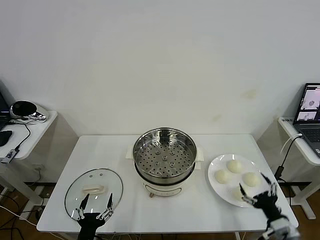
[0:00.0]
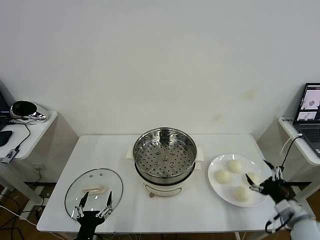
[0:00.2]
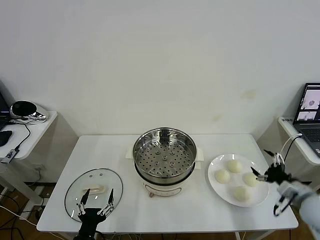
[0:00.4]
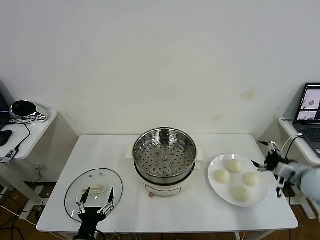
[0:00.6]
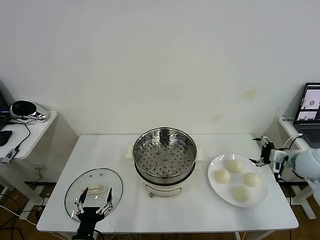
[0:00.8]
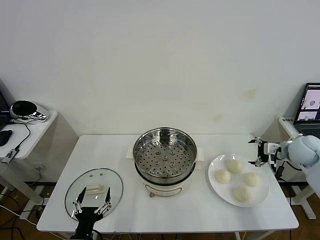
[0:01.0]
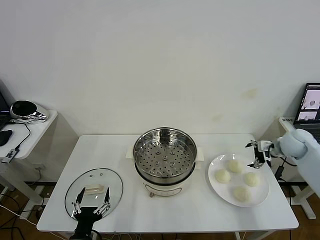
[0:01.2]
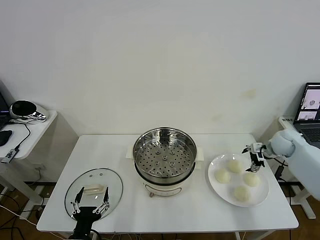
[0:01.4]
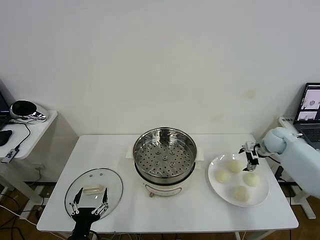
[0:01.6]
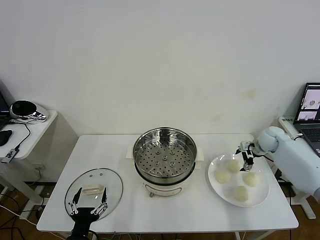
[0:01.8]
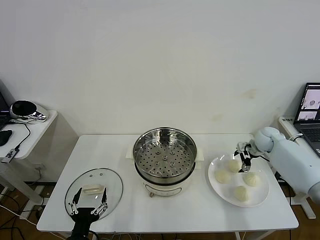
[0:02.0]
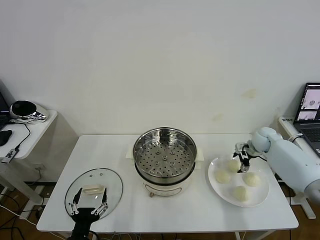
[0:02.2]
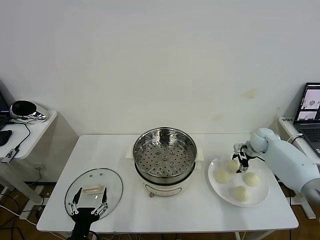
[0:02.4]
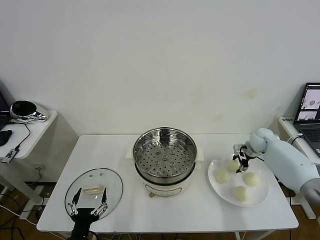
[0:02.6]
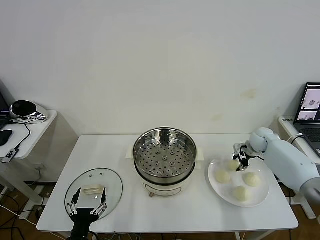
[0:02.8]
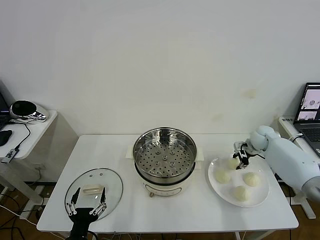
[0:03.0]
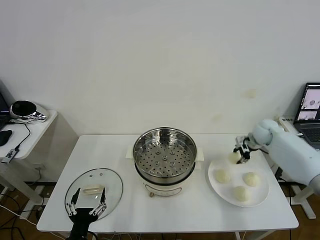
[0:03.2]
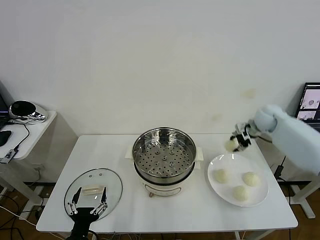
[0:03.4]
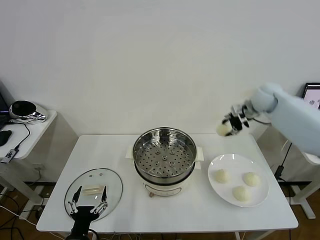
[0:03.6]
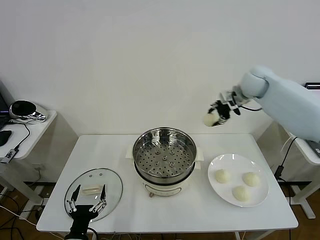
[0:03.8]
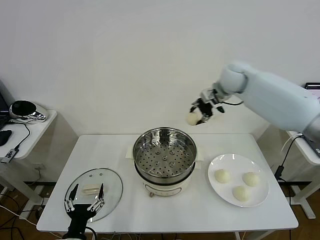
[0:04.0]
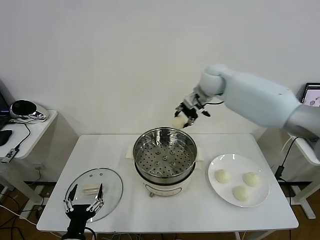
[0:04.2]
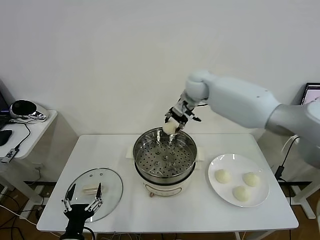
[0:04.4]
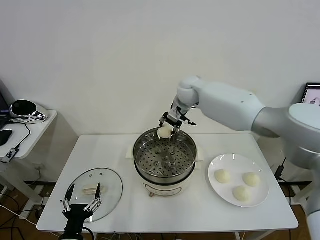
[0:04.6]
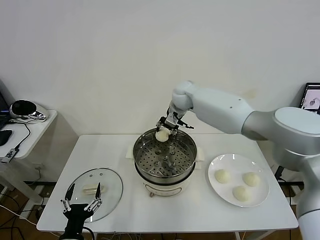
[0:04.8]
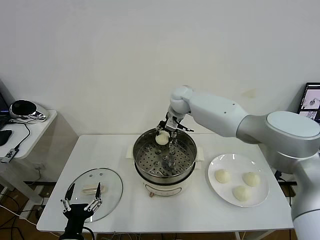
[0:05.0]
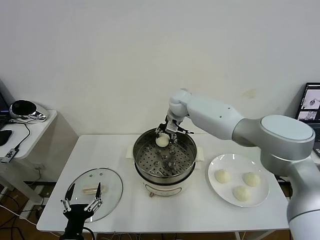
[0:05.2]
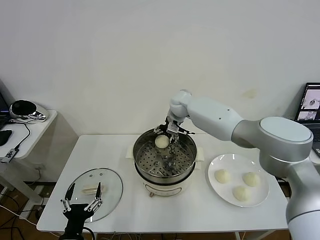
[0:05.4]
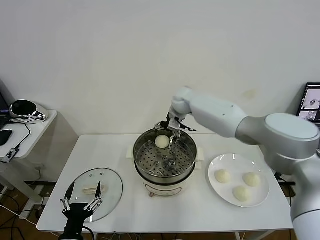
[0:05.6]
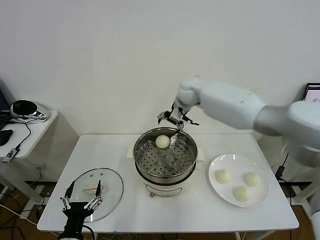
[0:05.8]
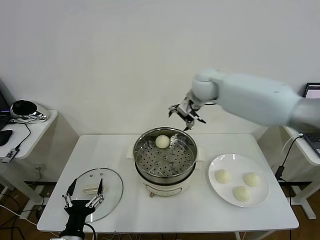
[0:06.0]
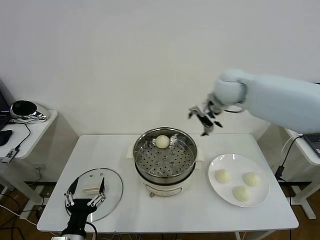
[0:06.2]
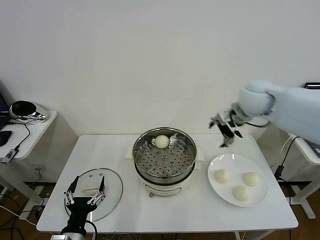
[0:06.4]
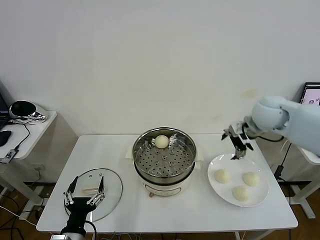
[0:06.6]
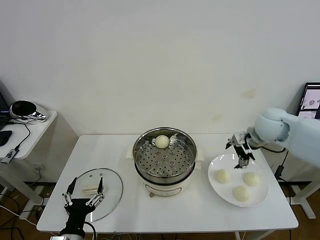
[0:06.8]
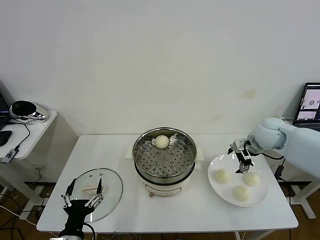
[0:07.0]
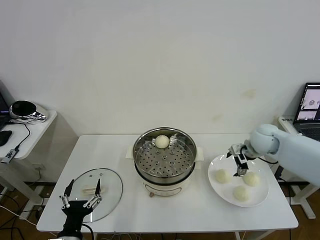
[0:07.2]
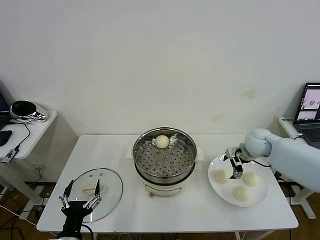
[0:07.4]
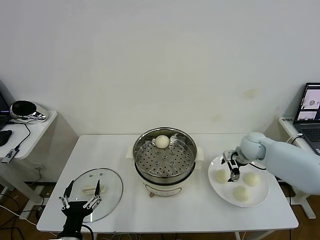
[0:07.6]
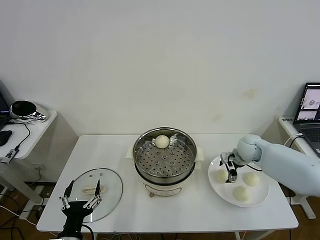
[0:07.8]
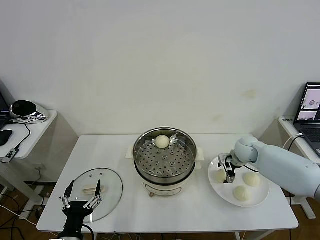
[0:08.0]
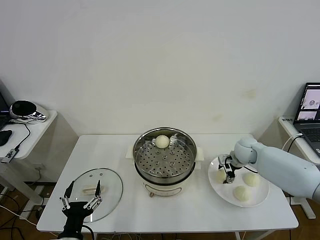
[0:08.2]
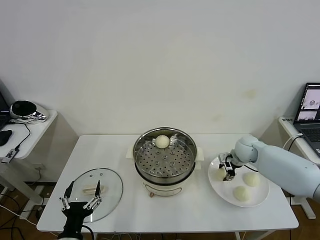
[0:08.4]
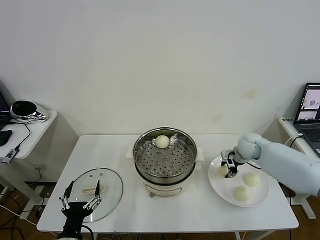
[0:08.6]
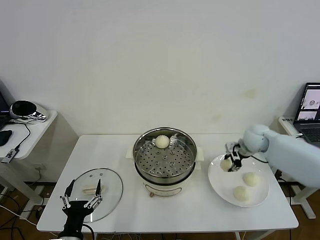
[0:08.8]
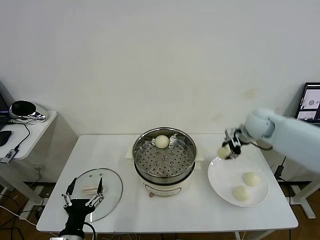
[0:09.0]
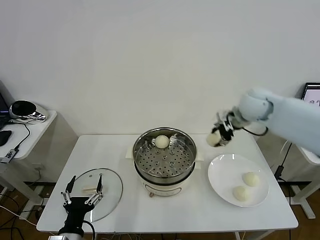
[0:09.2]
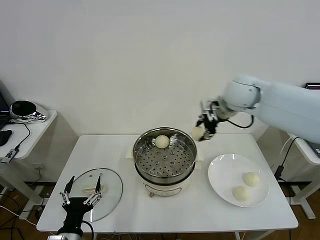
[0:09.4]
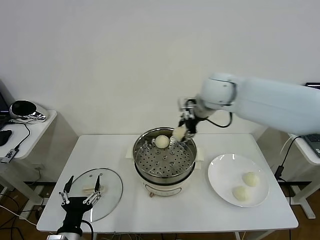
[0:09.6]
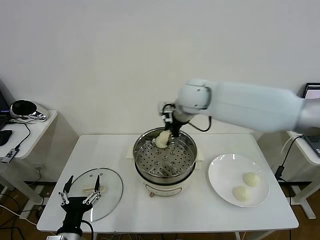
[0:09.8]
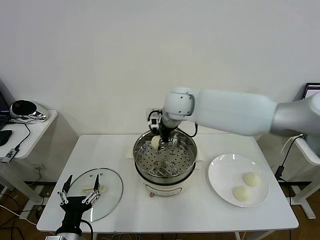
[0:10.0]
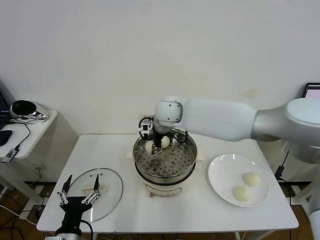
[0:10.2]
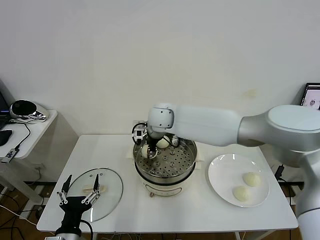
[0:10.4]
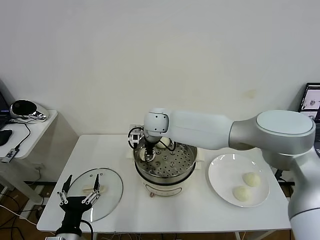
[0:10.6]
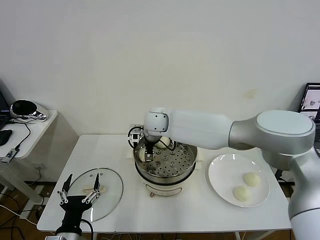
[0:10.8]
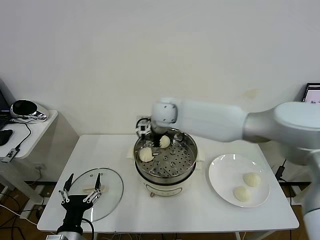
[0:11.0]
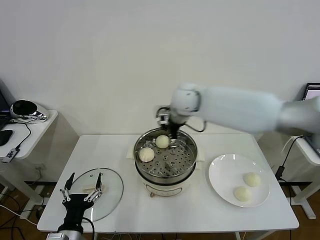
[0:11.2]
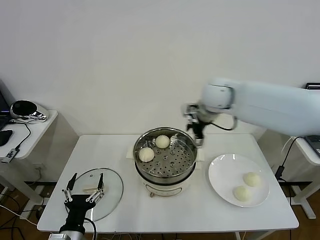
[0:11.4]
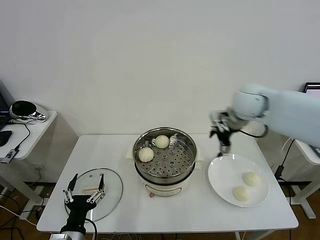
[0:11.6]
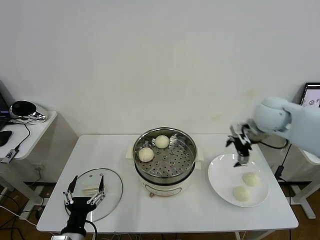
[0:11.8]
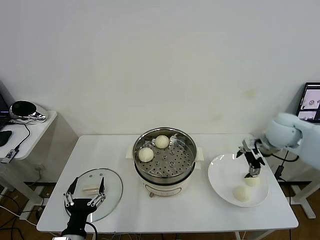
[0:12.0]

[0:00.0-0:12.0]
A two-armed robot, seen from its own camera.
Task of the whole recording: take steamed baozi put them in steamer then cover it.
Step, 0.0 to 2.4 s: Grasp the baozi in the plate with right gripper.
Step, 2.6 to 5.4 s: Place the baozi on the steamer with right gripper.
Step, 5.6 to 8.4 s: Grasp the baozi in the plate with right gripper.
Step, 8.6 to 10.8 s: Place the baozi on the steamer with right gripper.
1.6 to 3.0 s: The right gripper closes up.
3.0 to 4.4 s: The right gripper heads to the left and upward, covering some 35 cm.
4.4 to 6.0 s: The right gripper goes about 10 cm to the right and backward, and opens up.
6.0 to 7.6 s: The right gripper moves downward and to the right, some 30 cm.
7.6 to 9.0 s: The right gripper is displaced upward by approximately 15 cm, and closes its fingers.
9.0 to 10.4 s: The right gripper heads to the left, covering roughly 30 cm.
10.4 to 12.0 s: The right gripper travels to the right by about 40 cm, and opens.

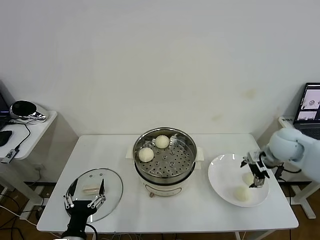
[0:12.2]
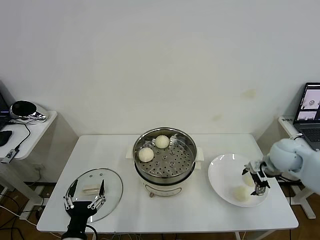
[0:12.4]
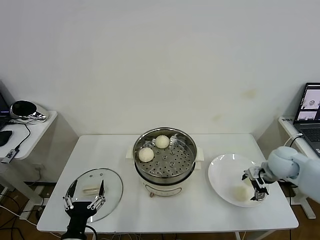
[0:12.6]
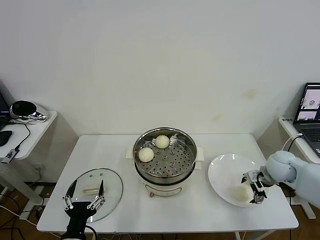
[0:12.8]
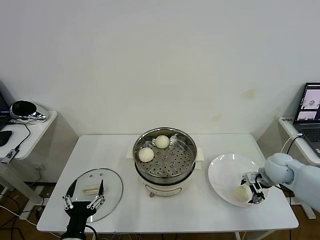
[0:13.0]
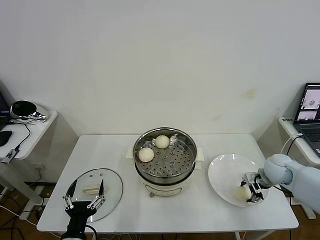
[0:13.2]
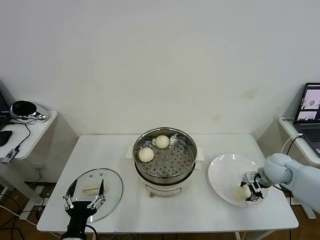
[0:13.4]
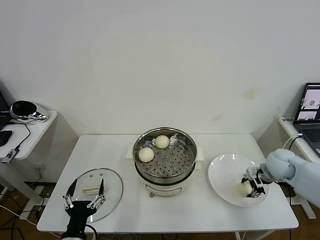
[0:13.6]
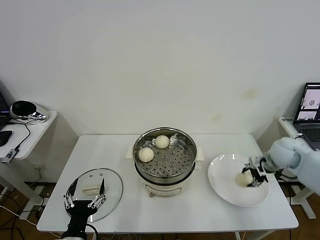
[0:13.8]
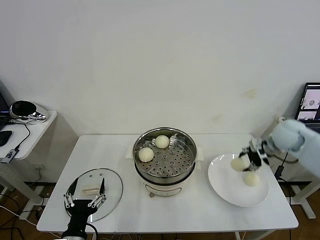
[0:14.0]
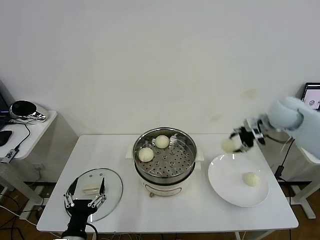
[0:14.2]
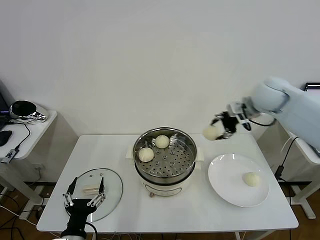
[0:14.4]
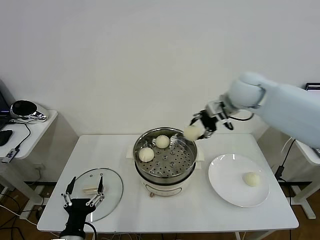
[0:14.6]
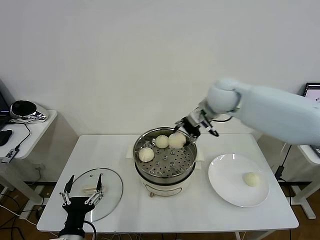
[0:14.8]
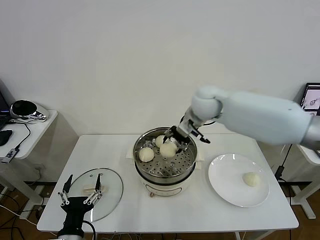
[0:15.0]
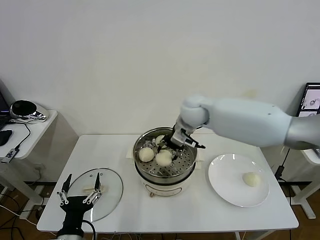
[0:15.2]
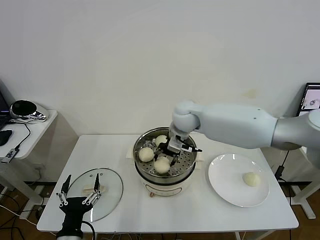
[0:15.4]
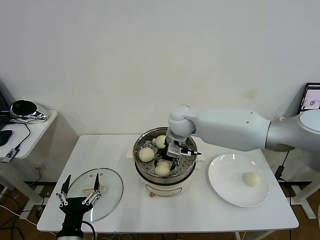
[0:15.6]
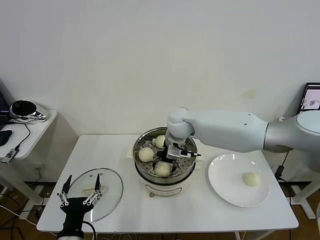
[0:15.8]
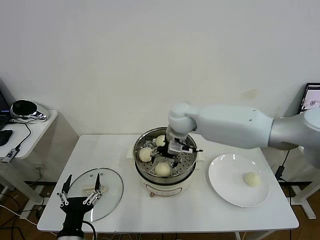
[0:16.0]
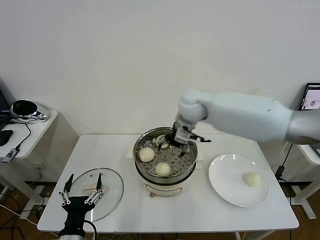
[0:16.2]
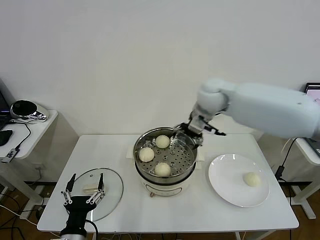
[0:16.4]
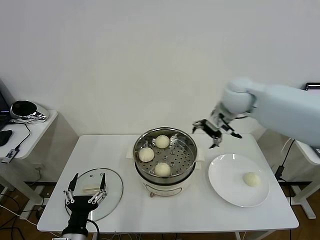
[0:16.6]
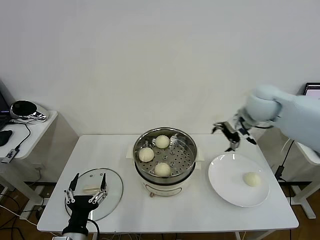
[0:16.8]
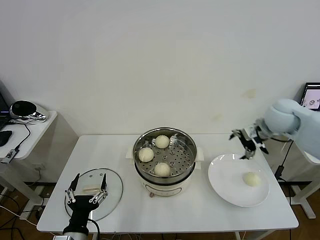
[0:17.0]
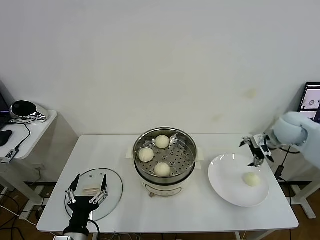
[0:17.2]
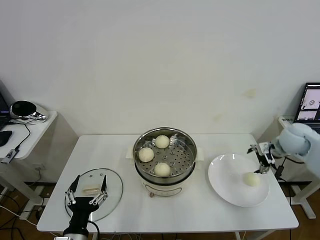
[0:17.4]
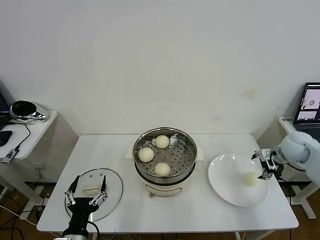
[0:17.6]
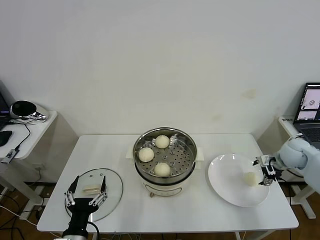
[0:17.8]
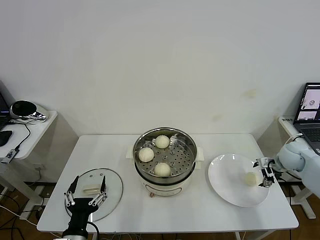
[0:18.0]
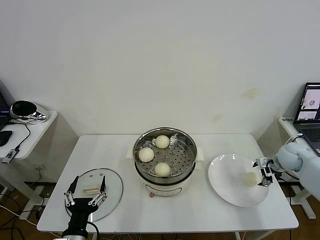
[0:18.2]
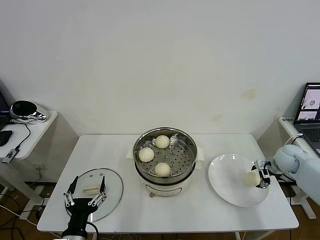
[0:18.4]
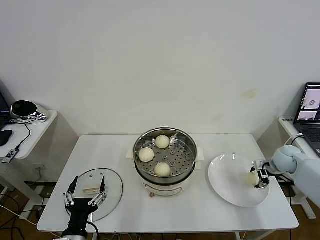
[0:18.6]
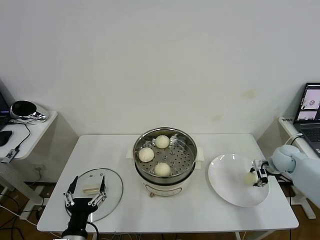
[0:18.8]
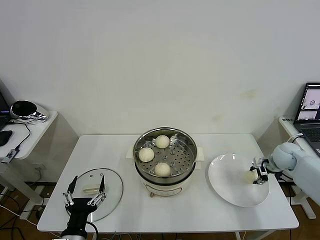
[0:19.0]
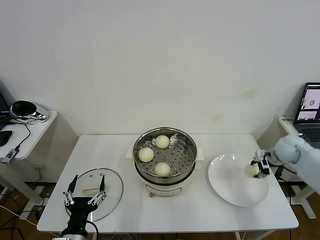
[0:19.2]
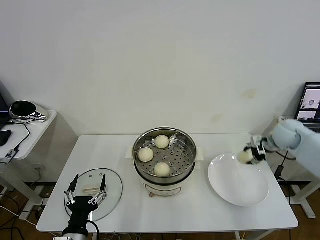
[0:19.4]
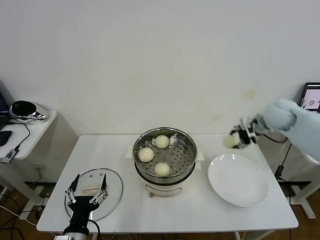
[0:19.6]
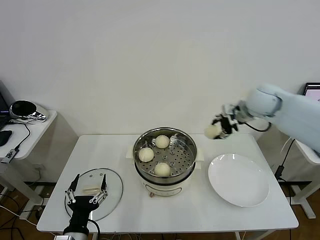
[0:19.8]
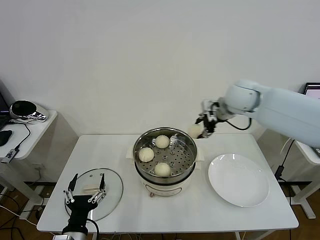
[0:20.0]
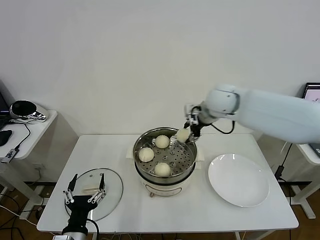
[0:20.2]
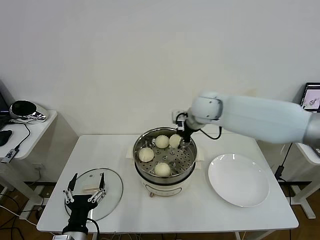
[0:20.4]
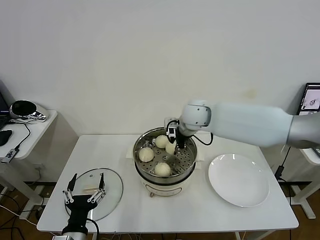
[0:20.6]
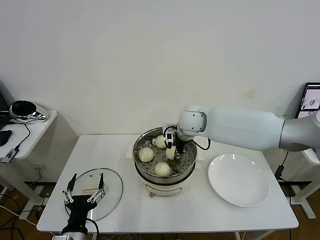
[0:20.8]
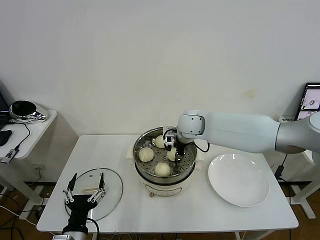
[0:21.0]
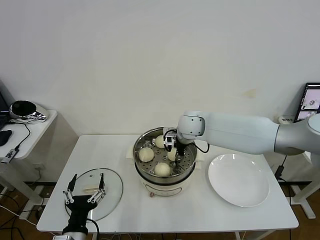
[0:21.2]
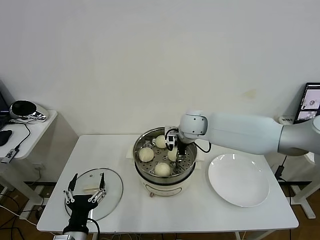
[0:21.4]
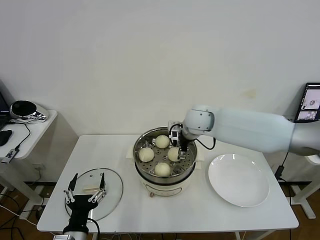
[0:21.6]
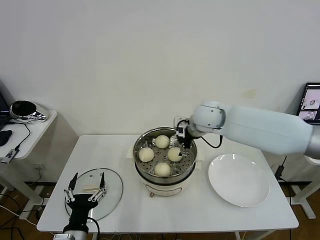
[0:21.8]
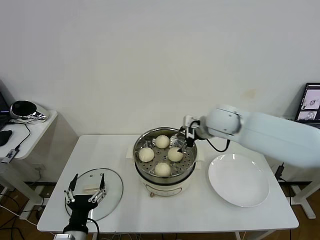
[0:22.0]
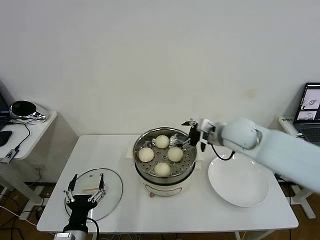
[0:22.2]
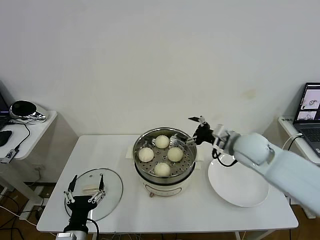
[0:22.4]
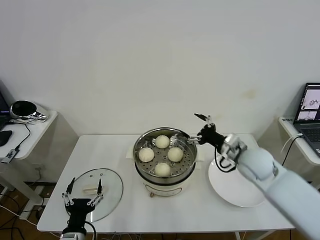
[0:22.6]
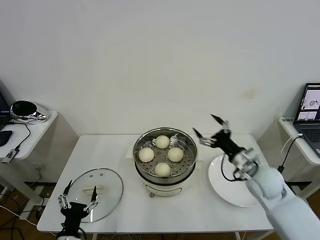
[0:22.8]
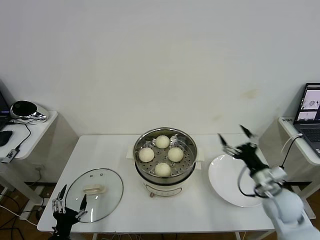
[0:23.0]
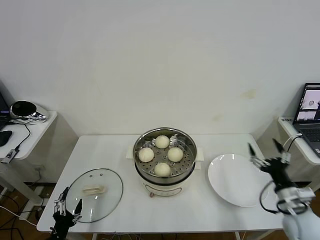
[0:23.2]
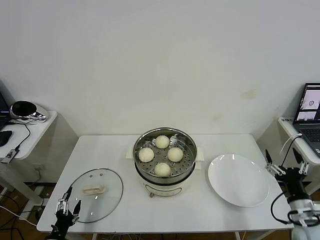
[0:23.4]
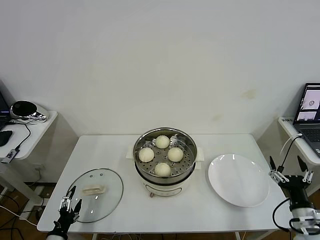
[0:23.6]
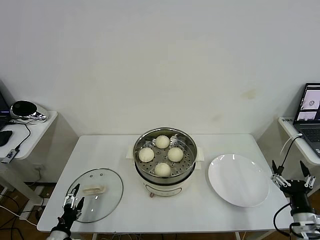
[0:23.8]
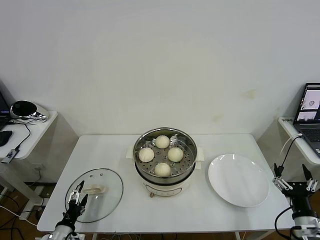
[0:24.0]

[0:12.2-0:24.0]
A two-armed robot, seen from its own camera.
Task of the whole recording: take steamed baozi put them in steamer then cover it.
Step, 13.8 to 16.0 s: Place the baozi on the steamer with right gripper.
Step, 16.2 to 18.8 s: Grasp the baozi in the plate with right gripper.
Step, 19.0 to 21.4 s: Place the baozi on the steamer with right gripper.
12.2 to 13.6 s: The right gripper moves downward, about 5 cm, and closes its fingers.
13.6 to 15.2 s: The right gripper travels to the left and upward by roughly 35 cm.
15.2 to 16.6 s: The right gripper travels to the right and upward by some 15 cm, and opens up.
16.6 to 18.2 s: The right gripper goes roughly 30 cm to the right and downward.
18.2 to 19.6 s: The right gripper moves upward and to the left, roughly 20 cm, and closes up.
19.6 to 21.0 s: The right gripper is displaced to the left by roughly 25 cm.
21.0 to 22.6 s: The right gripper is displaced to the right and backward by about 20 cm, and opens.
22.6 to 24.0 s: The left gripper goes approximately 15 cm to the left and downward. Meanwhile the right gripper moves backward, to the right and downward, about 30 cm.
